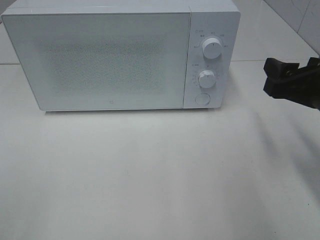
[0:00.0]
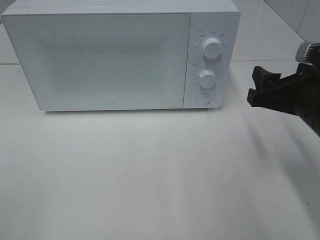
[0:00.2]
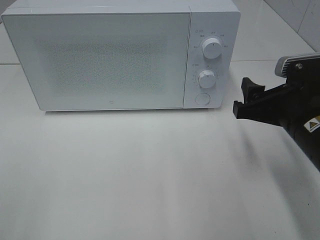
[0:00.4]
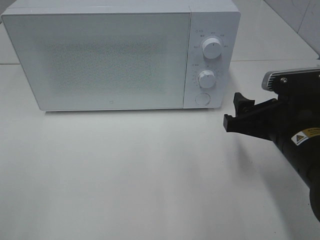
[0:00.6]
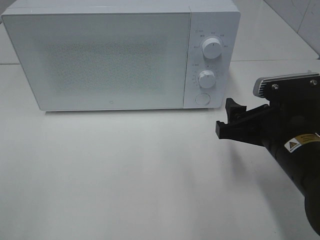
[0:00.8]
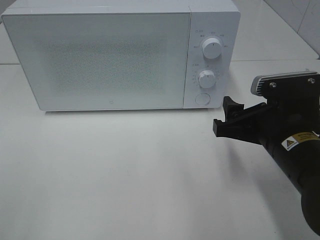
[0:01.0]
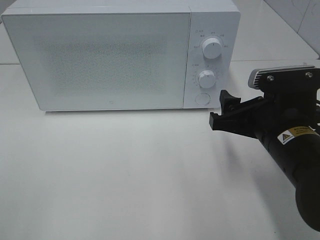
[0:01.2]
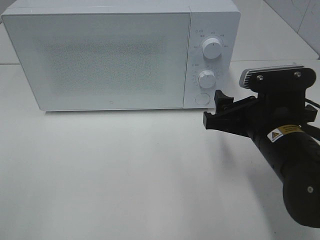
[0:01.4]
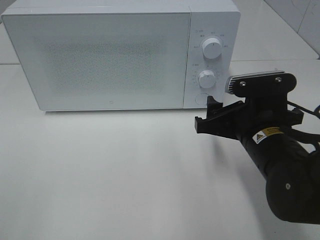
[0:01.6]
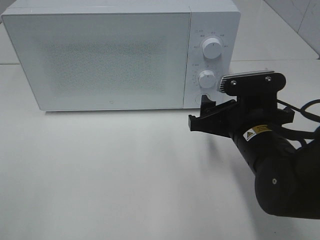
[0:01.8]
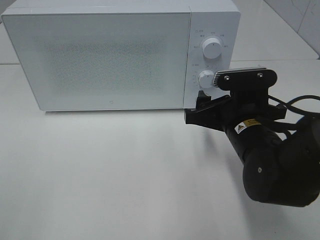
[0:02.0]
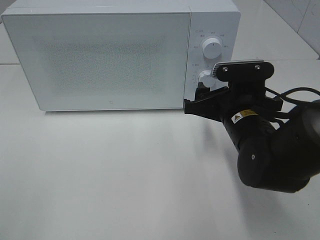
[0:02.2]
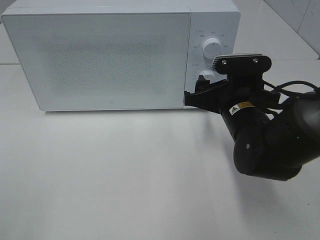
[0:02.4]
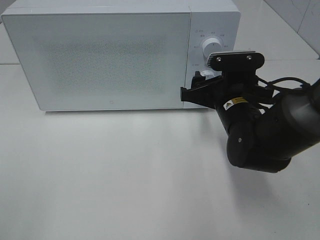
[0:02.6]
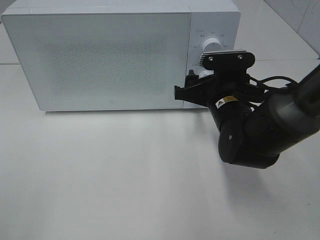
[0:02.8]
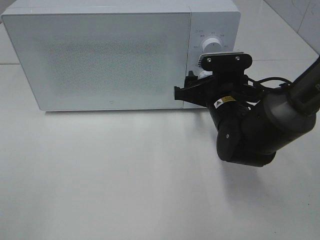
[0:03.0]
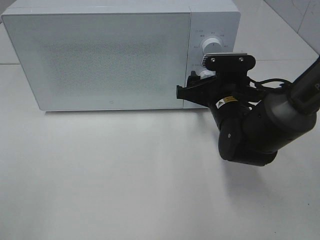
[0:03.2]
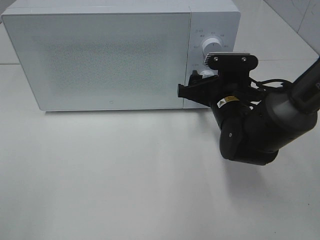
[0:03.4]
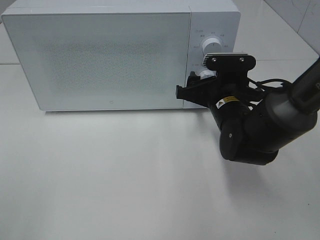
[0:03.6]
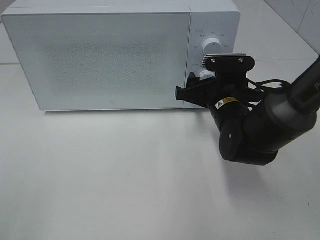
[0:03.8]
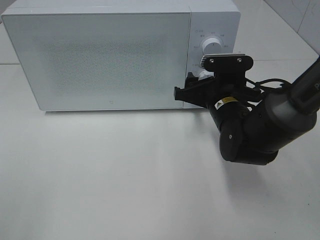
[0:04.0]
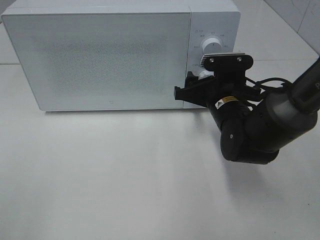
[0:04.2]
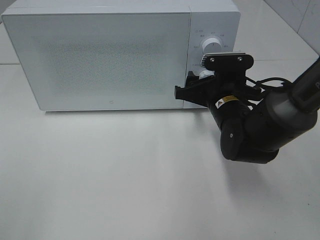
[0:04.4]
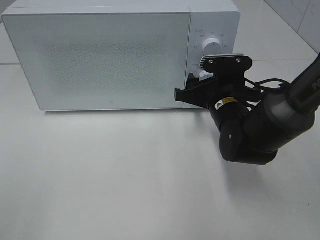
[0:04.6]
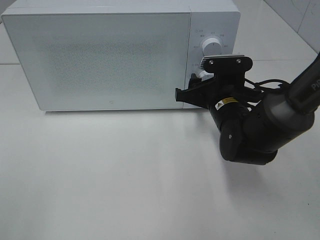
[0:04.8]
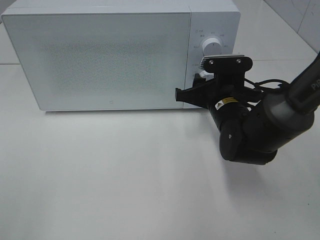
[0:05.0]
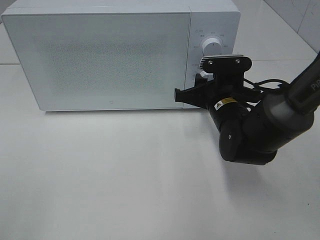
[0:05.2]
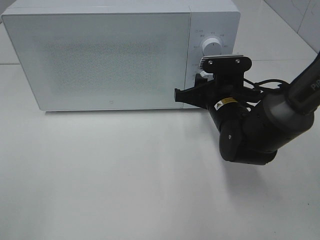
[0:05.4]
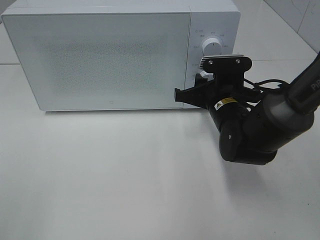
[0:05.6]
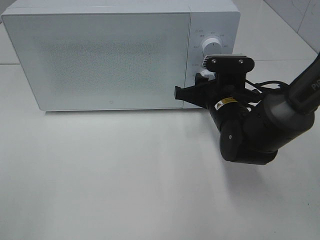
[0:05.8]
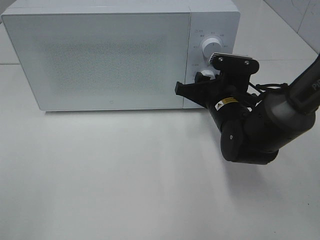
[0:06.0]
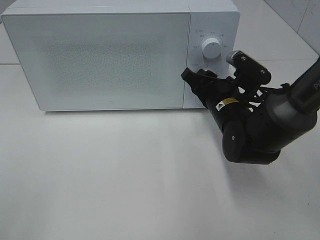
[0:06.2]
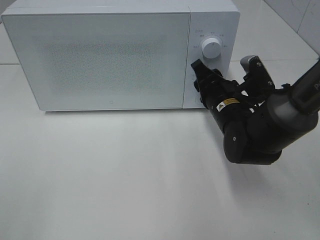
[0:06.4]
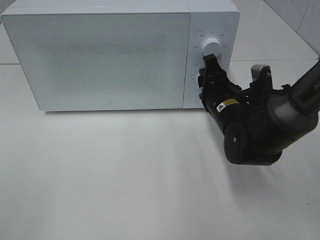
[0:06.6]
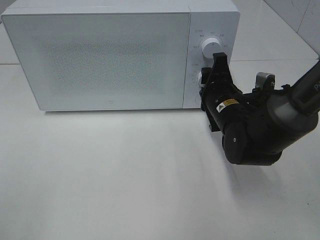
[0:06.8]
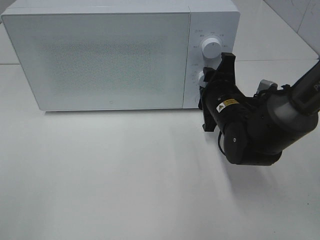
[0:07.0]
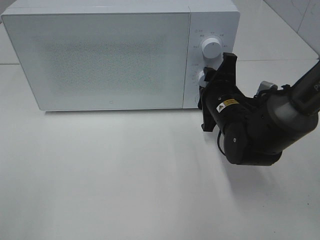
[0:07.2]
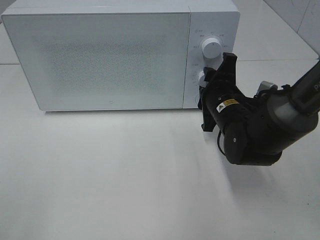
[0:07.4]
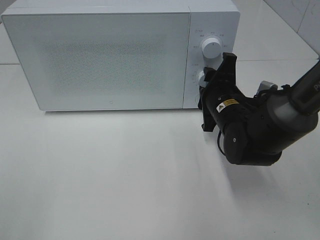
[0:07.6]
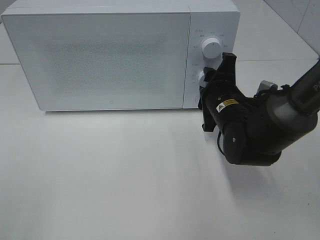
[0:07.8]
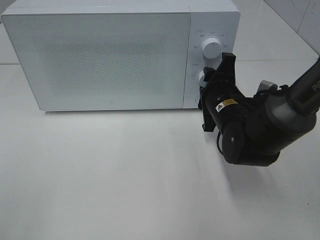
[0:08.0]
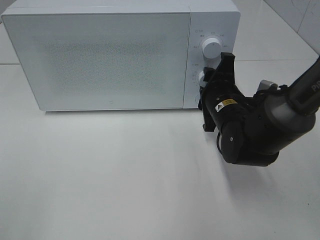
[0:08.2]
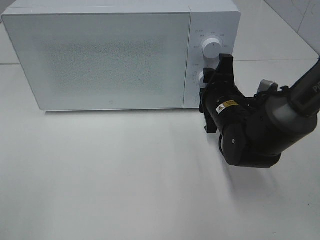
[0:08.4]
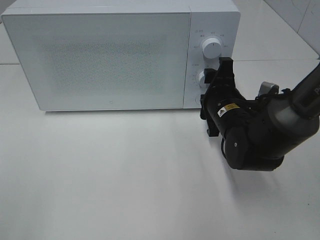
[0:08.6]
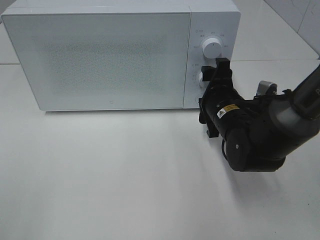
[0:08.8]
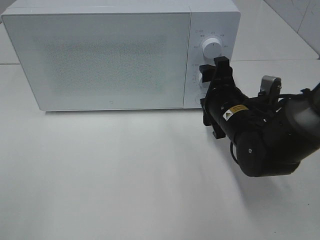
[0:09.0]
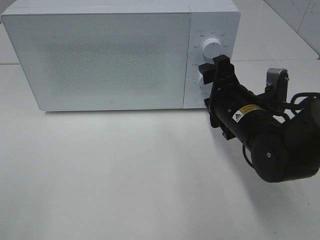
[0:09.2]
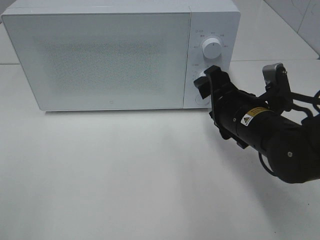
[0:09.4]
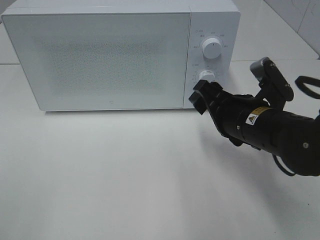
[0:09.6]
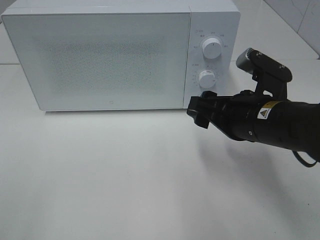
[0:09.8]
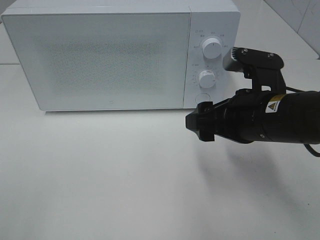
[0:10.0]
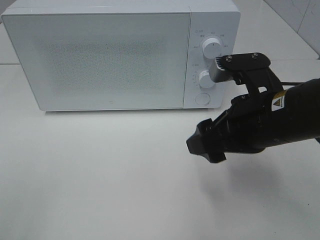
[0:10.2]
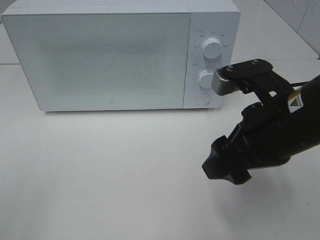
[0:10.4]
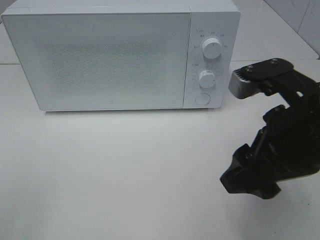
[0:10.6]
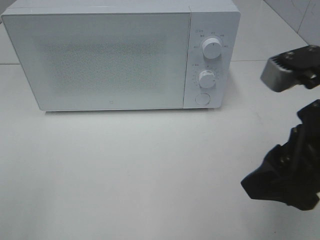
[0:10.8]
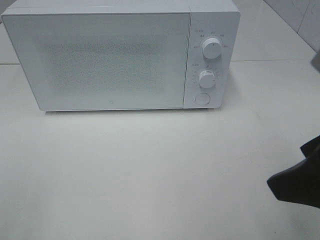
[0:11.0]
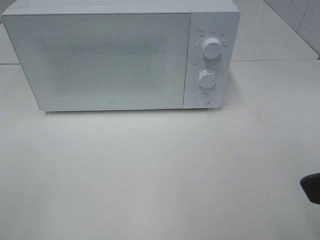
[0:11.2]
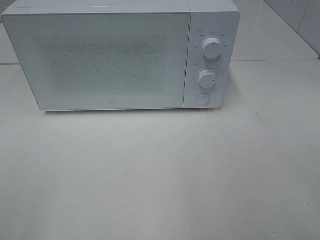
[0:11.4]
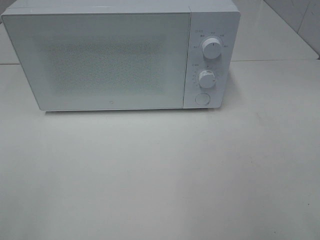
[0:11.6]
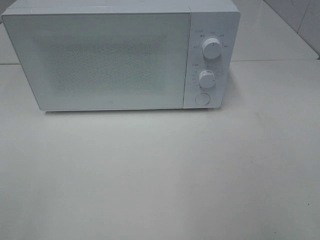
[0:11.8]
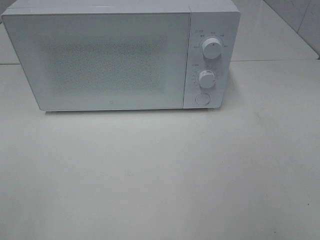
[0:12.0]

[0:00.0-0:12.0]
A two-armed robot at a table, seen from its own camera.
Task of the whole recording: Heat the burger.
Step, 0:00.0 to 0:08.4: Right hand: twist timer button.
0:00.0 to 0:01.6: The right gripper travels to the left and downward by about 10 cm.
0:01.6 to 0:03.0: The right gripper heads forward, covering approximately 10 cm.
0:03.0 to 0:04.4: Both grippers stay about where they are.
0:04.4 to 0:06.0: The right gripper closes up.
0:07.6 to 0:09.0: The right gripper opens.
0:09.0 to 0:10.4: The right gripper shifts some 15 cm backward and upward.
0:10.4 to 0:12.0: The right gripper moves backward, to the right and upward, some 25 cm.

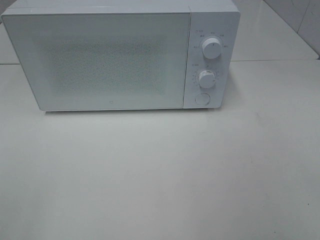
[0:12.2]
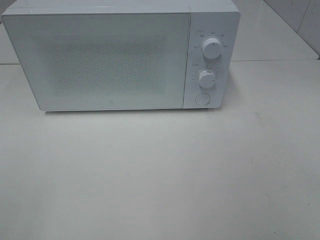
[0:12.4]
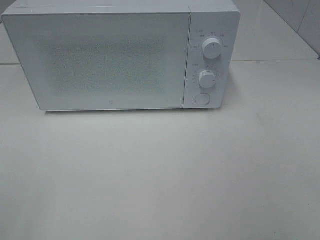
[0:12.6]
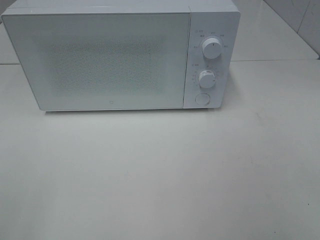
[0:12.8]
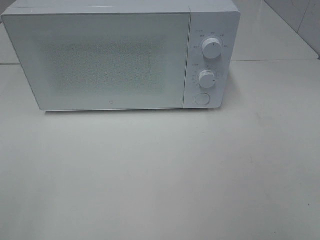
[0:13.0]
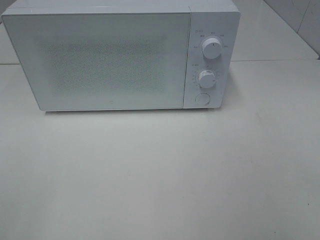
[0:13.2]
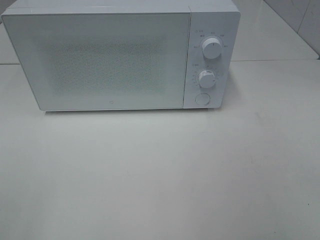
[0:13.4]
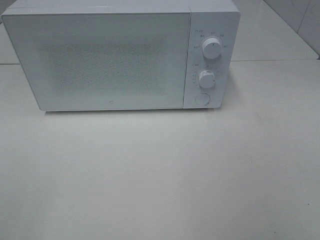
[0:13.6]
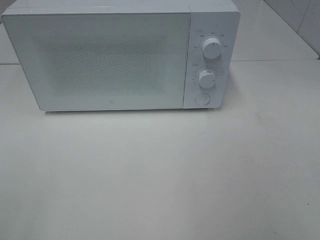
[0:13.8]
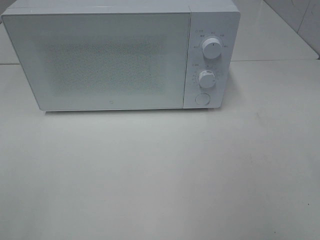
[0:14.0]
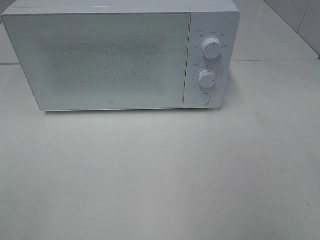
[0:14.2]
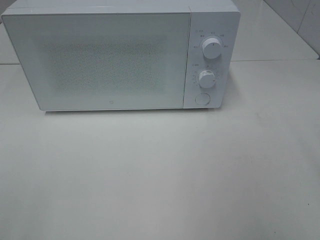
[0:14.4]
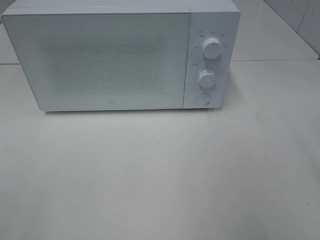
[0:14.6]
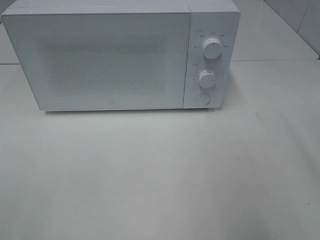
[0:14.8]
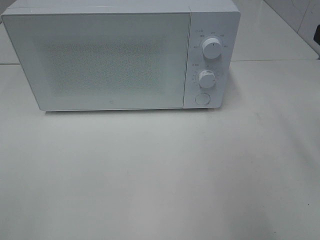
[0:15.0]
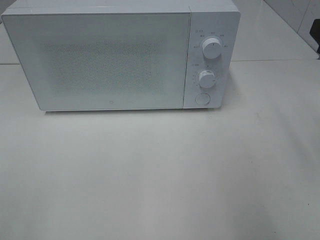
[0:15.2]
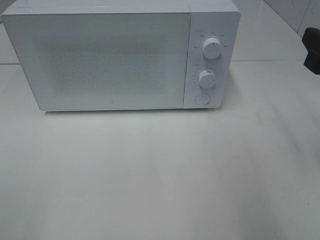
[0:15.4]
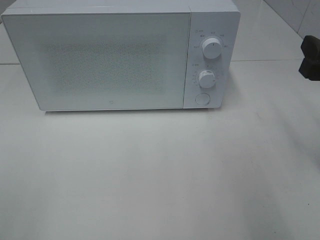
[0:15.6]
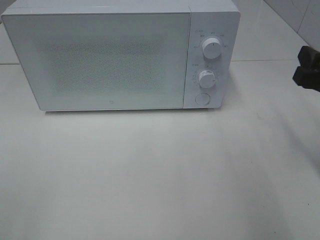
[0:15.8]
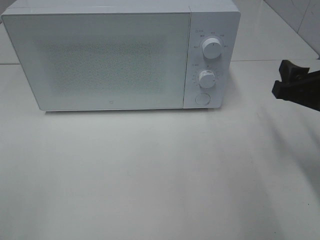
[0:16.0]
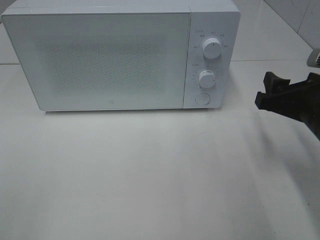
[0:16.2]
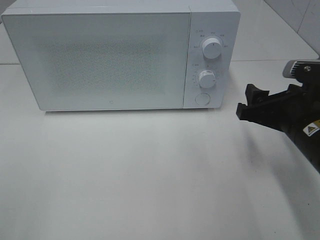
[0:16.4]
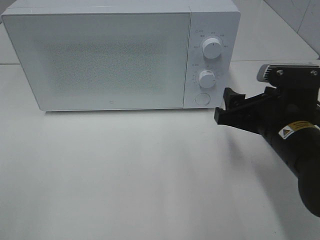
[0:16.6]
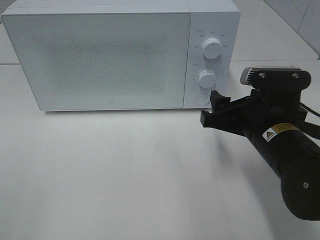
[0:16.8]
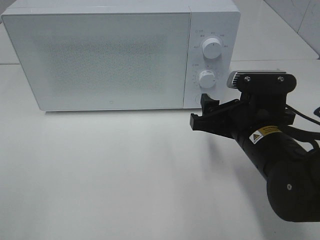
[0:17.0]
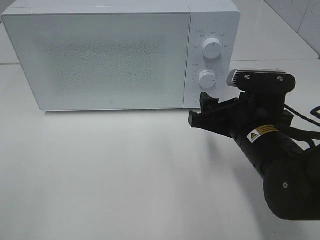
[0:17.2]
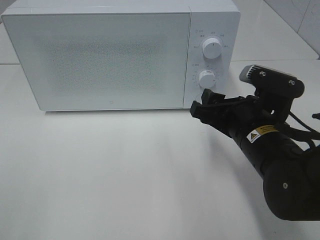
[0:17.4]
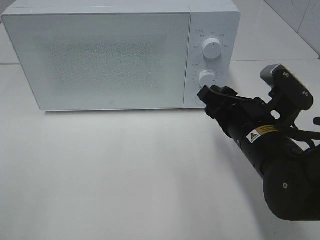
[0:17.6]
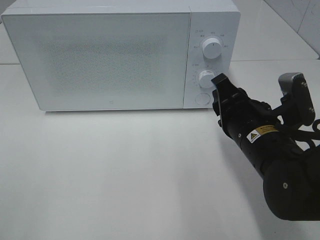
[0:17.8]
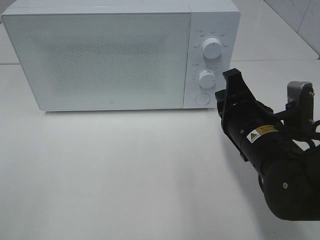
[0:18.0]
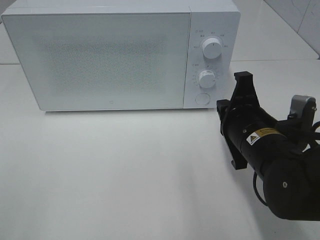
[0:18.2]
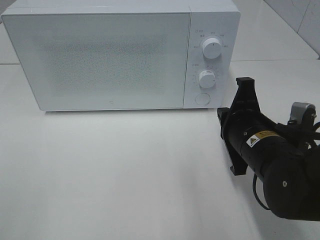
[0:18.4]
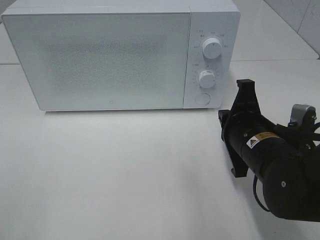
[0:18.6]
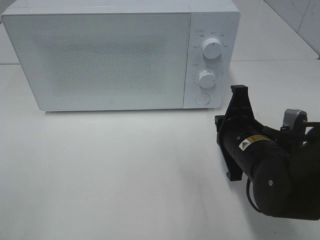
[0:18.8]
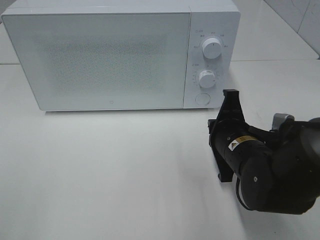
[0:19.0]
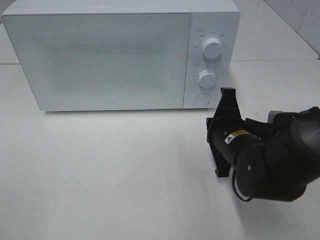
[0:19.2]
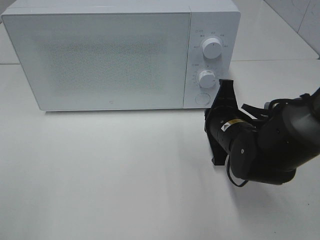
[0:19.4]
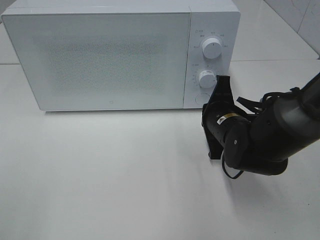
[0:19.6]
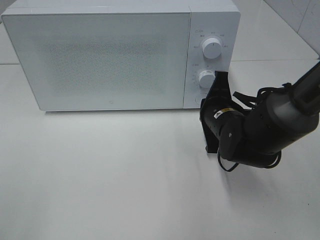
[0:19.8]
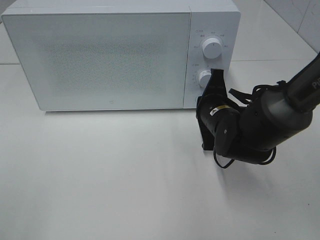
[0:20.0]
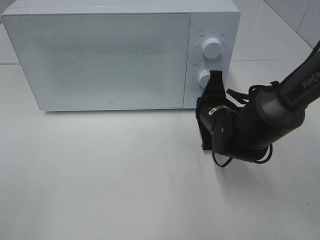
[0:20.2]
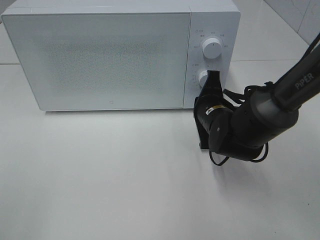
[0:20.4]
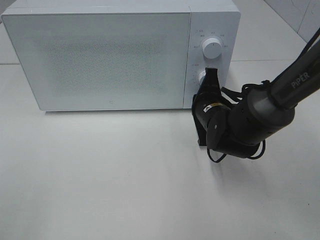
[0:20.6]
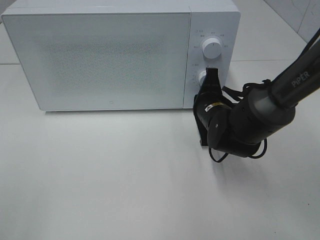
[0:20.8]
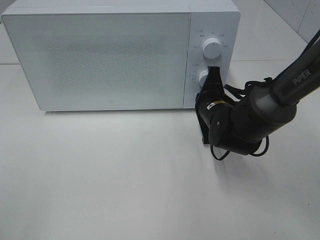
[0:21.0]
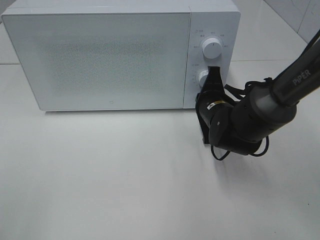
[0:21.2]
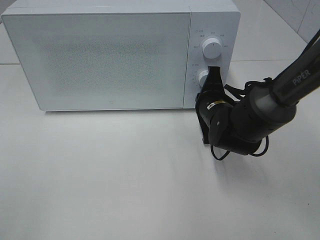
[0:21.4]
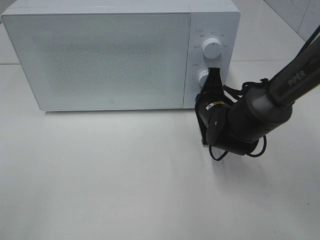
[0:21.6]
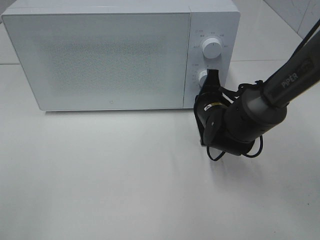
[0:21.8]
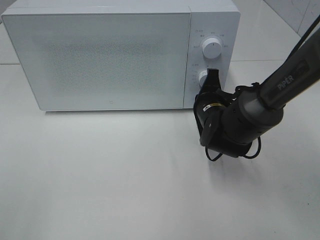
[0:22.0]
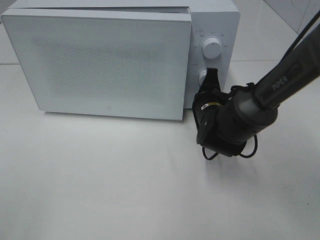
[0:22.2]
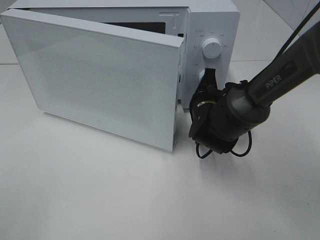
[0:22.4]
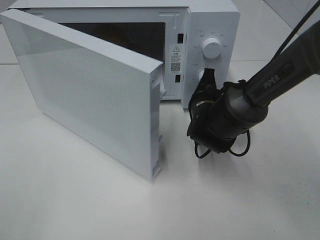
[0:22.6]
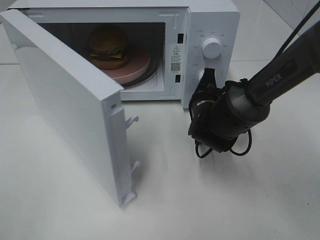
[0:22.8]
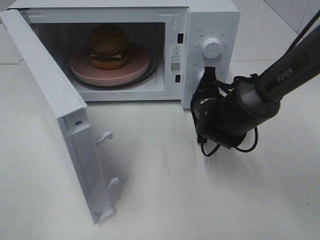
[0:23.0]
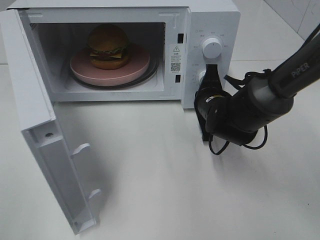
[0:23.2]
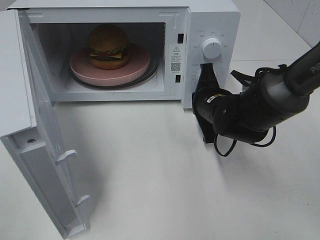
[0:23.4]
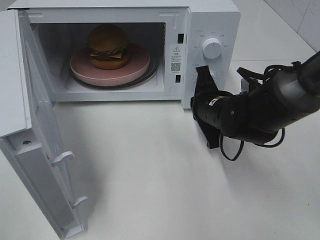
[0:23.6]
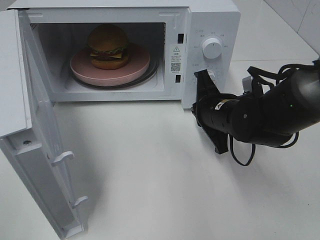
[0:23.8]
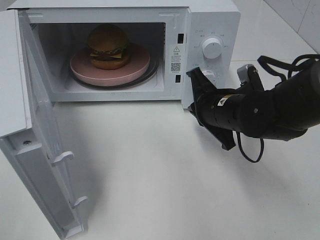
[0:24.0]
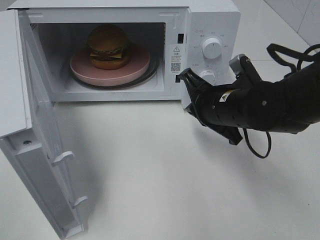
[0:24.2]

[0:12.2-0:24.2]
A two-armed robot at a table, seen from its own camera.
Task of the whole recording: Heat the burger.
Step, 0:12.2 to 0:23.4: Right hand: press the switch.
0:15.2 to 0:16.6: The right gripper heads downward and to the left, covering about 15 cm.
0:16.6 to 0:18.2: The right gripper closes up.
0:18.2 to 0:19.8: The right gripper travels forward by roughly 10 cm.
0:19.8 to 0:21.2: The grippers stay close to where they were, moving slightly.
0:22.6 to 0:24.2: The right gripper is displaced backward and upward by approximately 10 cm.
